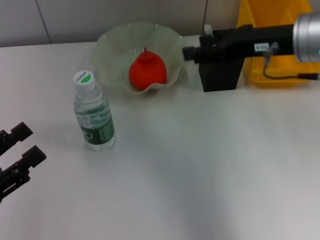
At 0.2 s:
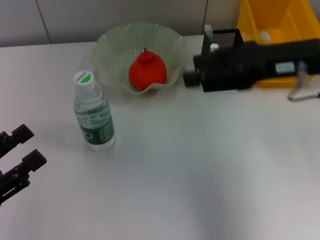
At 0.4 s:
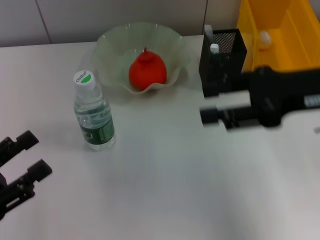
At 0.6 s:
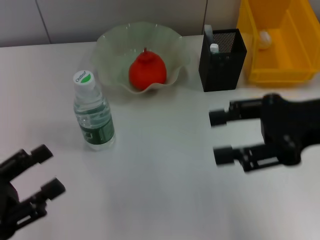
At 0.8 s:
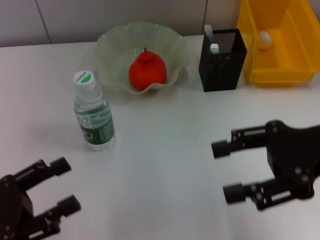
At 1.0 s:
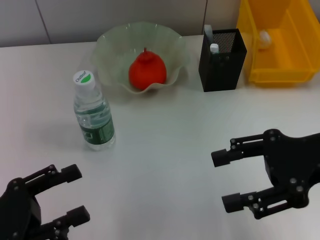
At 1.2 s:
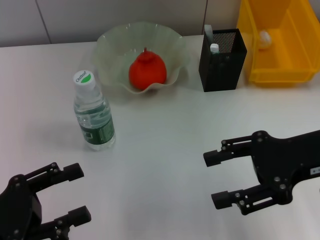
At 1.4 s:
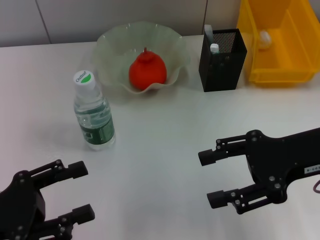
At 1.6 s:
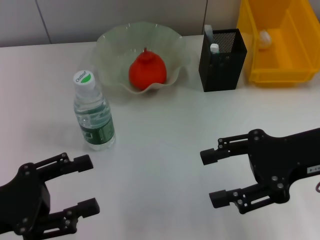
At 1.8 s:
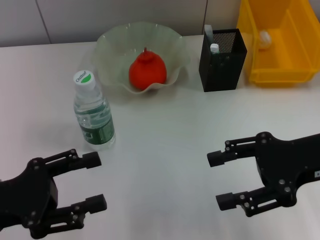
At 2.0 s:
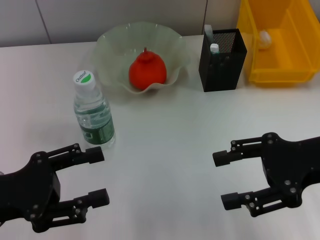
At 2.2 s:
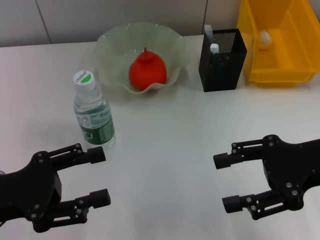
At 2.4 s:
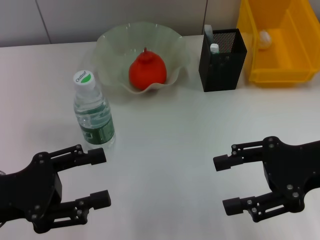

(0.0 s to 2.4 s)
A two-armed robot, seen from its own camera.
0.0 s - 1.2 s: The right gripper travels backward by some 10 cm, and opens up.
1.2 s - 2.4 s: The grippers stay close to where they were, moving slightly.
